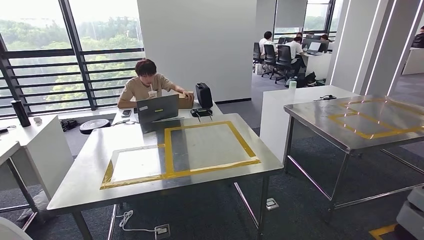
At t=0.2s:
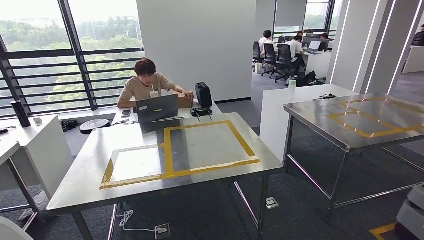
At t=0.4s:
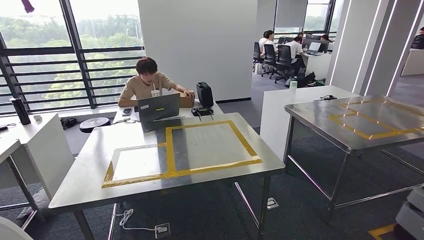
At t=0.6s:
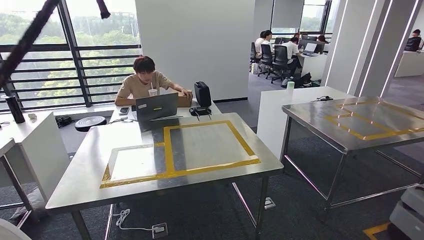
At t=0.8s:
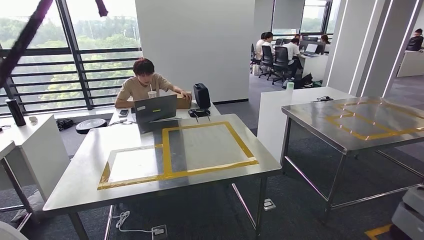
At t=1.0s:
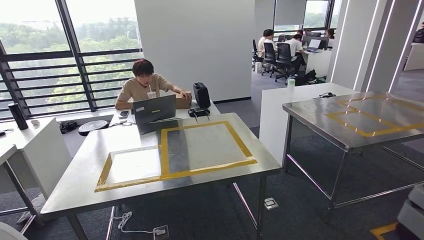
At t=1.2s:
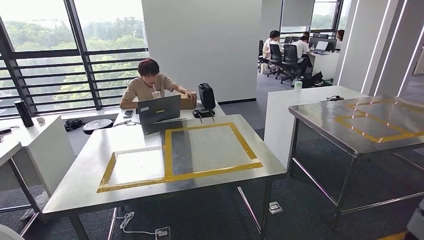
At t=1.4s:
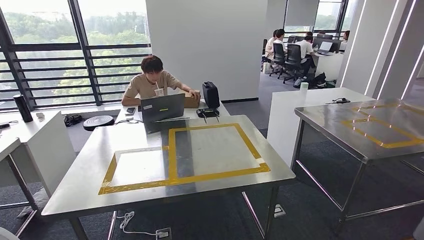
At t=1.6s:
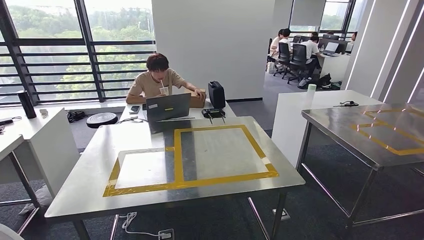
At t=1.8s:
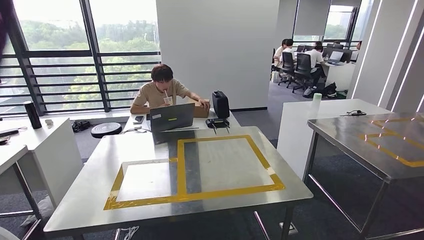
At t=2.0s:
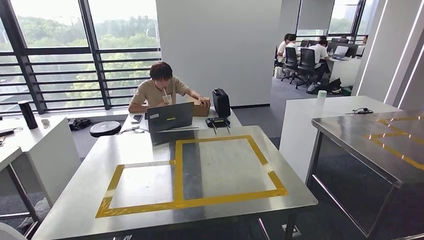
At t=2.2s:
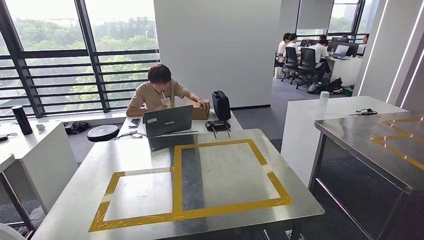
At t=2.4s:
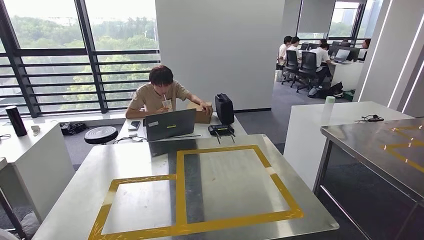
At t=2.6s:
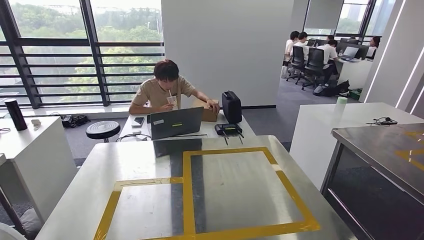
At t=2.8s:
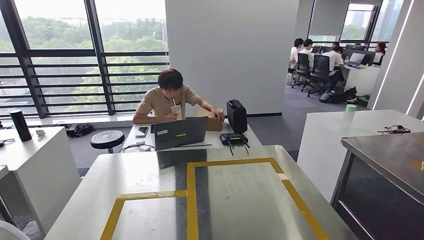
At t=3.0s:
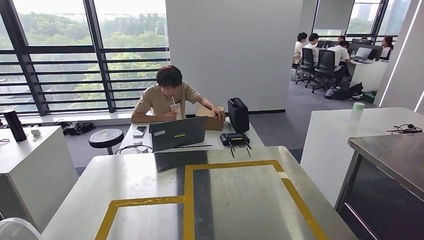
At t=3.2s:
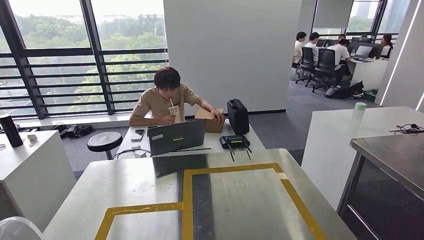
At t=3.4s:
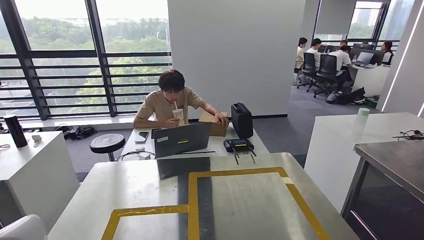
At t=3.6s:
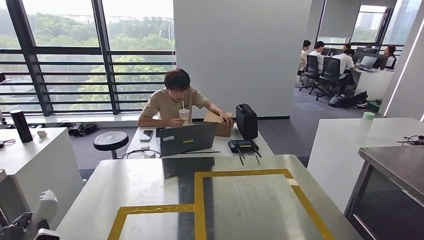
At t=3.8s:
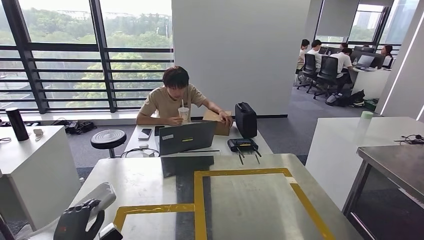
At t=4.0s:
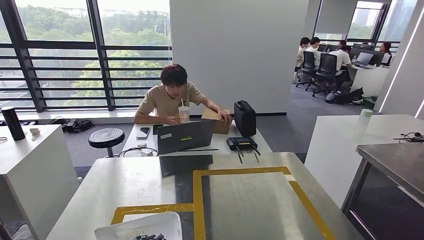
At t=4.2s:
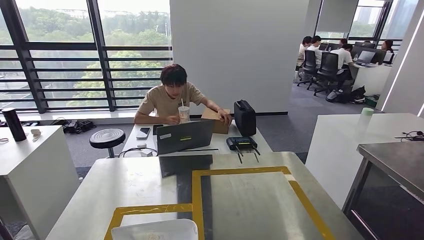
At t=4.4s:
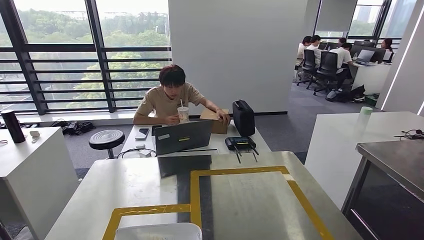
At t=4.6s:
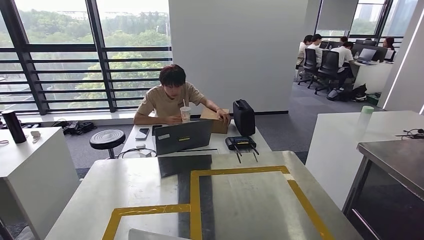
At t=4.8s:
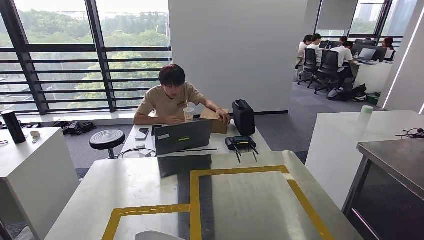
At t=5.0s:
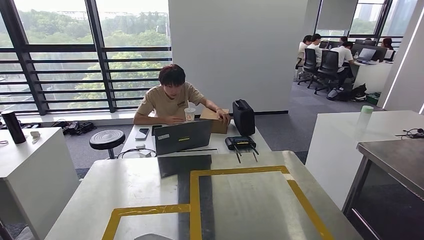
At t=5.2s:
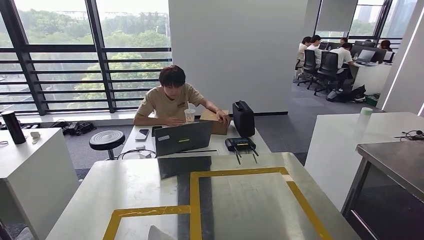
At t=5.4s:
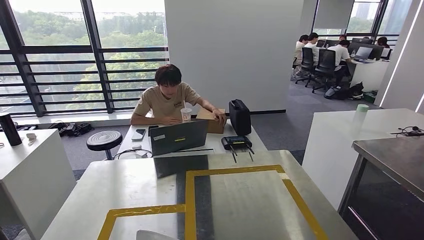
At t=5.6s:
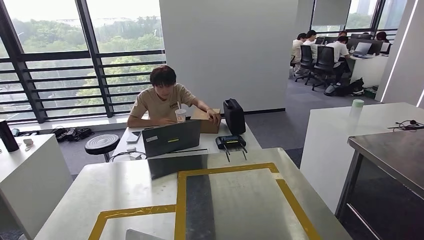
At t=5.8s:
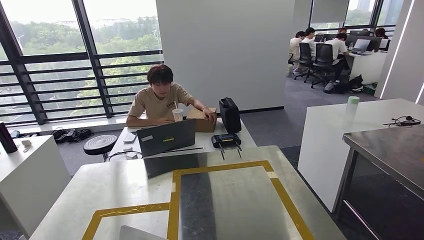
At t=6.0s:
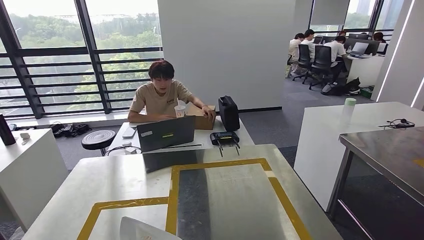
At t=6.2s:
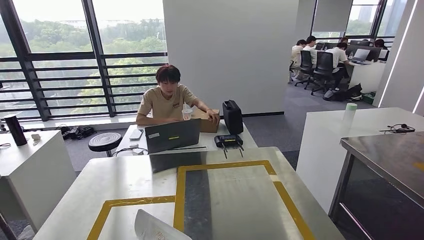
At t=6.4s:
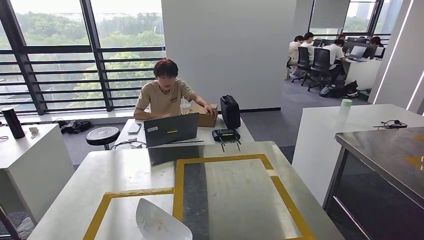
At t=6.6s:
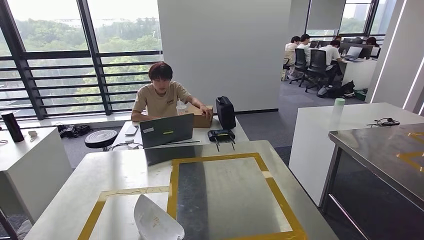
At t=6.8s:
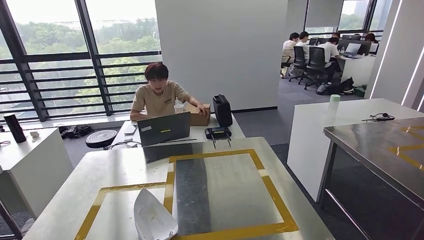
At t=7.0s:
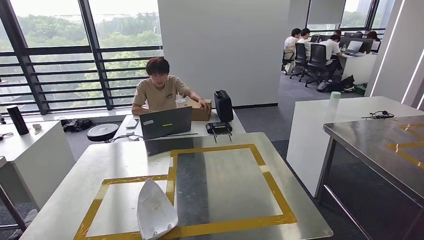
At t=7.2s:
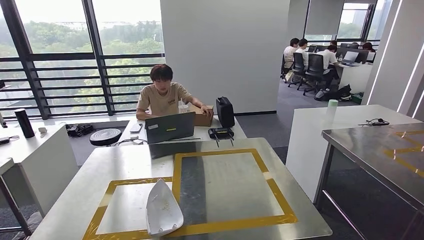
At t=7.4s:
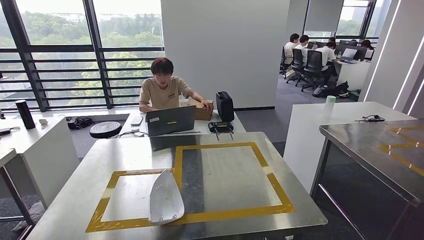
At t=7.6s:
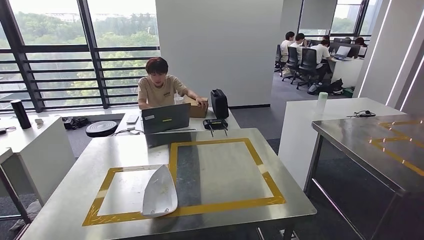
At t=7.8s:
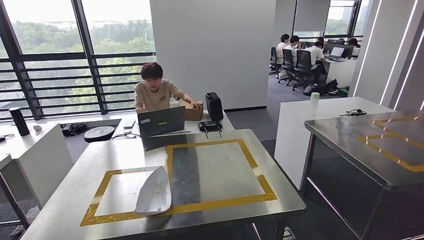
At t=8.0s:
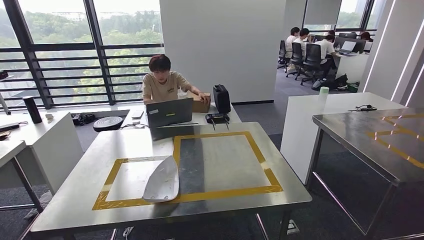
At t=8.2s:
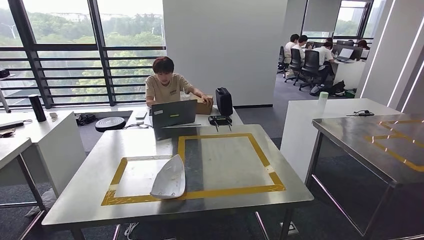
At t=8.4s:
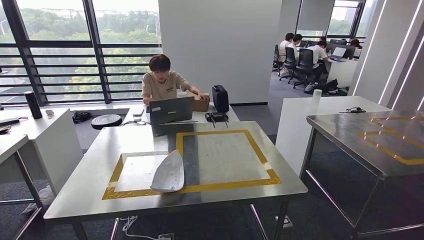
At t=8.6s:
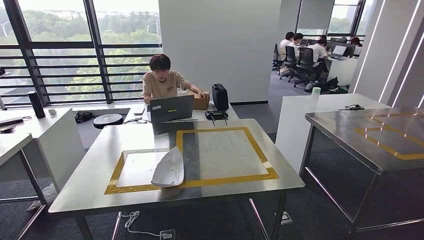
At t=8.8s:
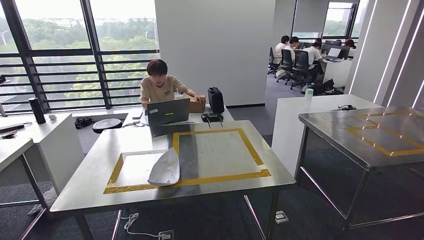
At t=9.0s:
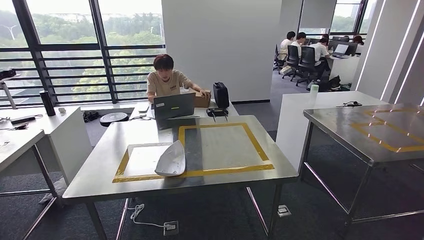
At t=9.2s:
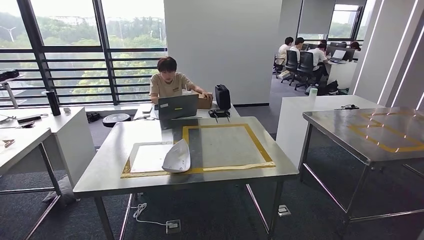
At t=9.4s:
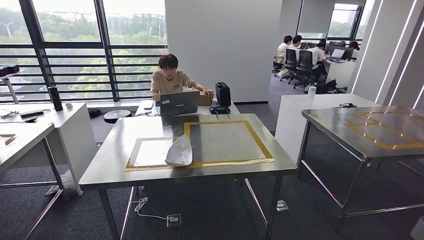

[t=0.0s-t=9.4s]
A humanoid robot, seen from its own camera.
Step, t=0.0s to t=8.2s: Insert the small parts into the corresponding slots on the workbench.
Step, t=8.6s to t=9.4s: Return to the initial position at the workbench.
